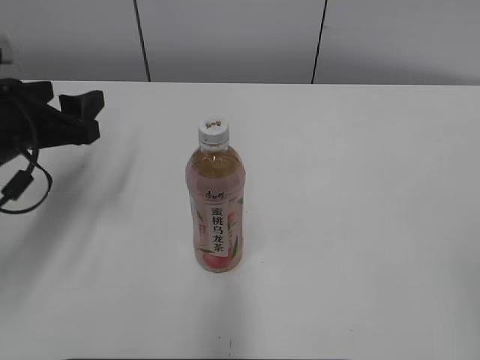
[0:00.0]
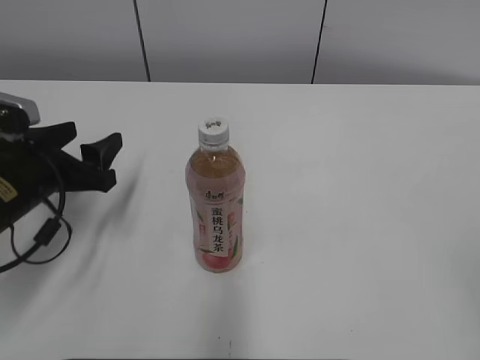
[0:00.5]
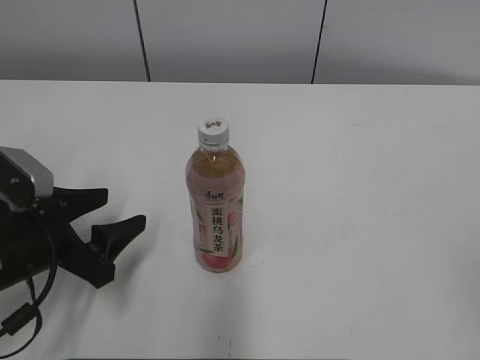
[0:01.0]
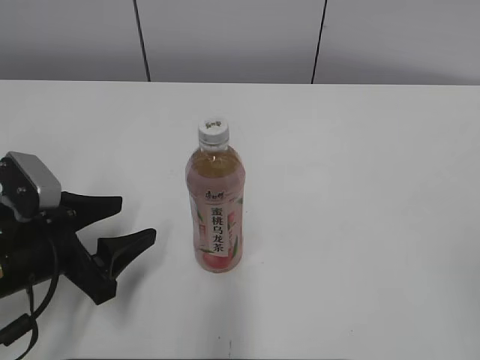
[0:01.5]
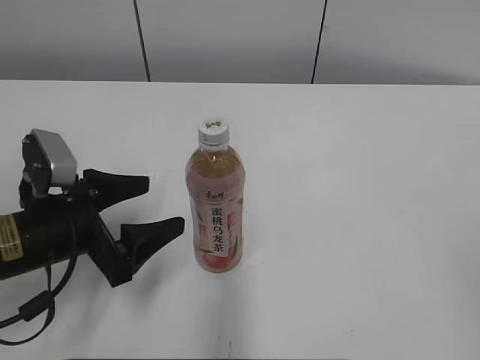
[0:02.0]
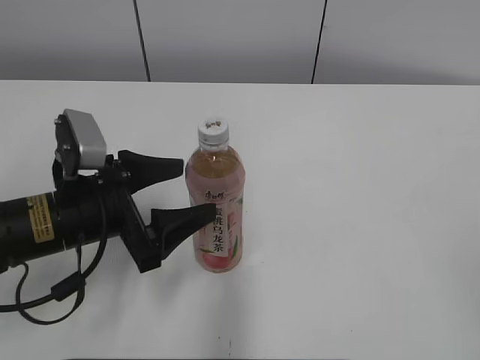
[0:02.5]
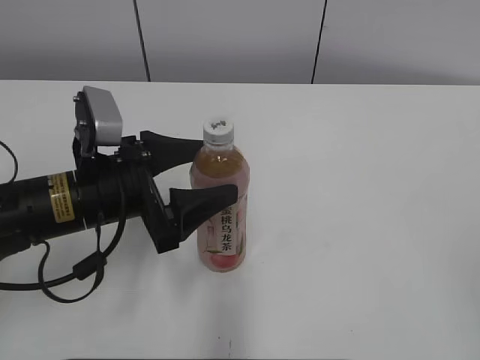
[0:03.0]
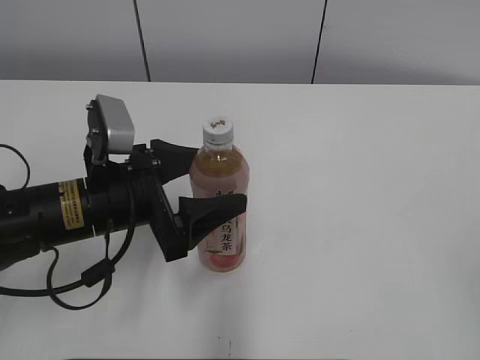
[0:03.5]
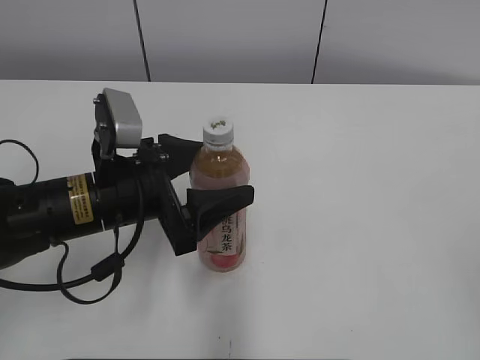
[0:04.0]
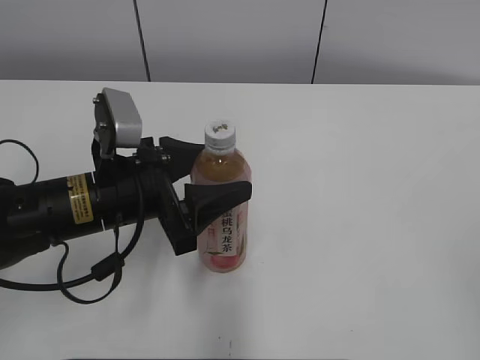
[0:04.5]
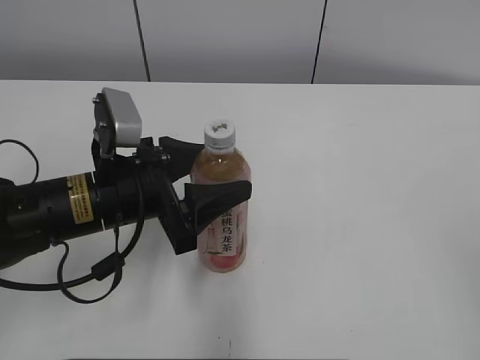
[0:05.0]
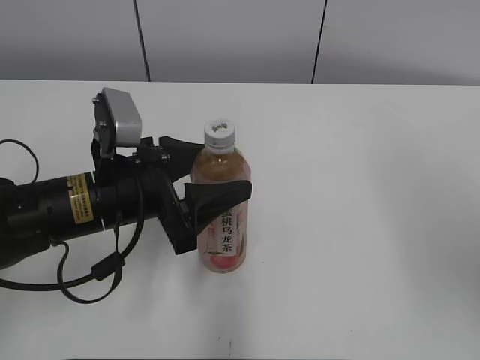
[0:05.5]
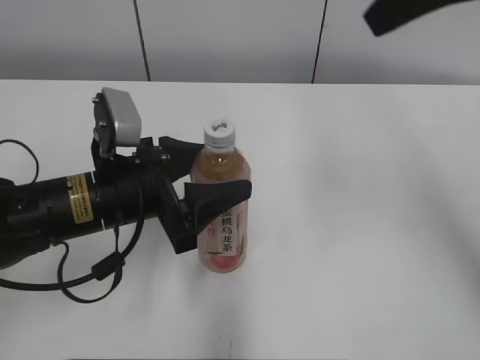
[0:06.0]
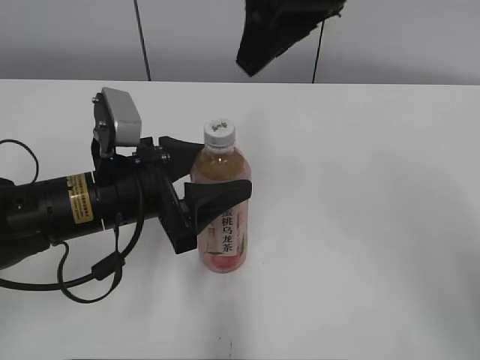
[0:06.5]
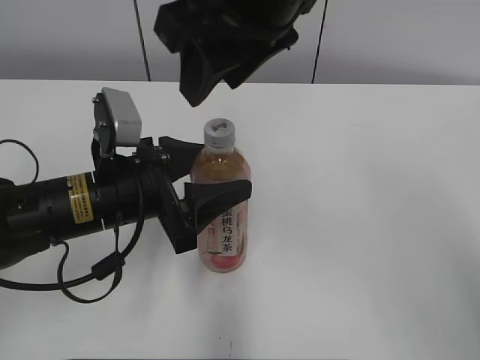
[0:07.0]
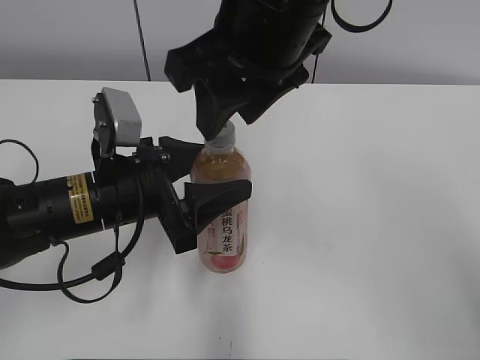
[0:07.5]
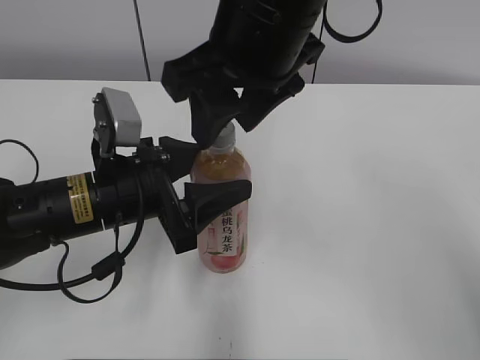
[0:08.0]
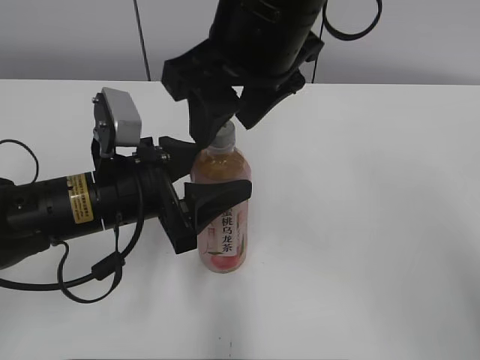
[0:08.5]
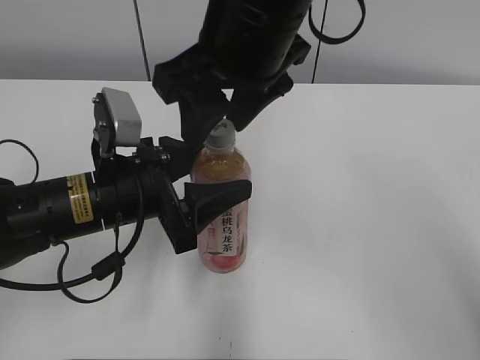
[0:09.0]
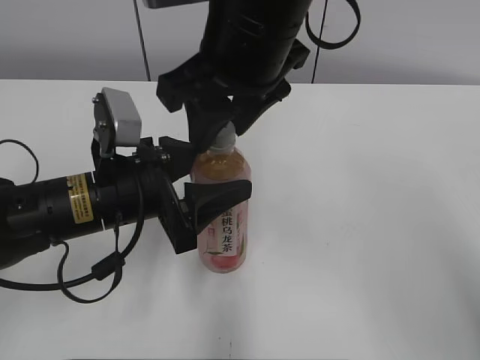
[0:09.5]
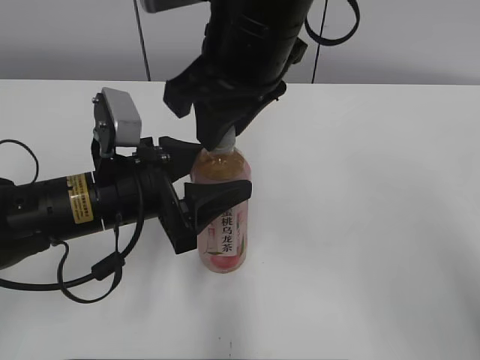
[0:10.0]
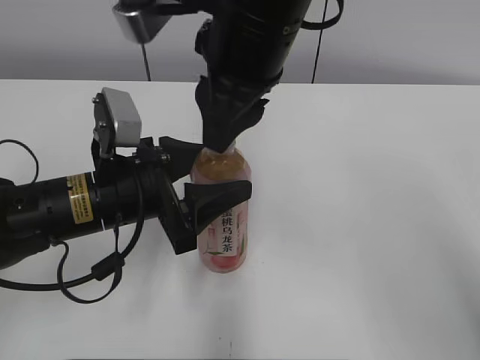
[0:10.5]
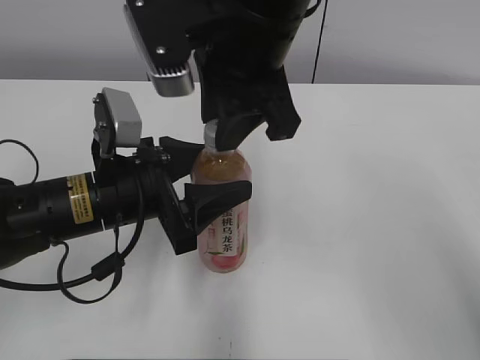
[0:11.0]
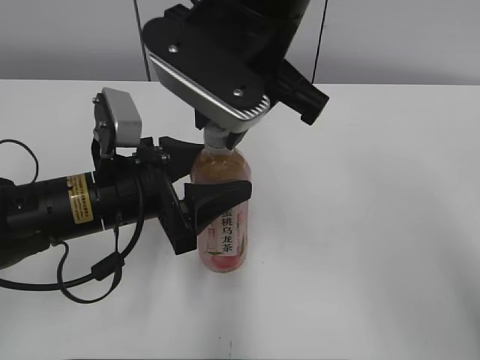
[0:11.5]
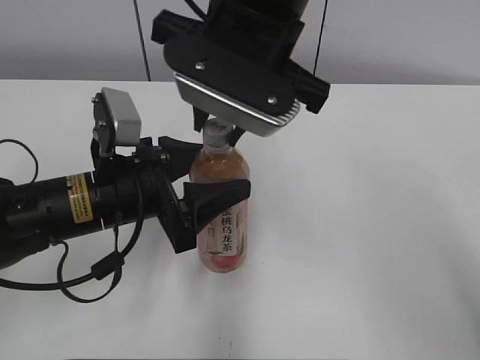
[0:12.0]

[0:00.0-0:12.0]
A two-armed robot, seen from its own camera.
Step, 0:00.0 to 0:04.5: Grab the Peach Oolong Tea with the left hand.
0:00.0 to 0:02.0: The left gripper heads downward and backward, covering approximately 10 cm.
0:02.0 to 0:04.0: The left gripper moves to the right, roughly 5 cm.
0:04.0 to 0:06.0: The right gripper shifts about 35 cm forward, upward and to the left.
0:06.0 to 0:08.0: The right gripper travels to the left and downward by some 20 cm.
0:08.0 to 0:10.0: The right gripper closes.

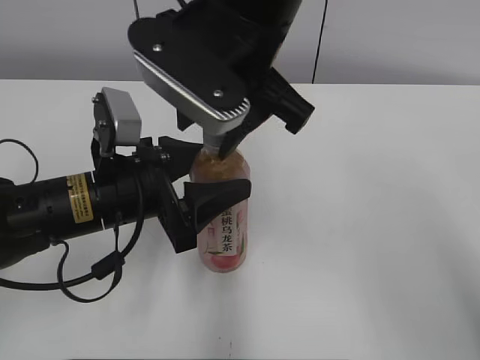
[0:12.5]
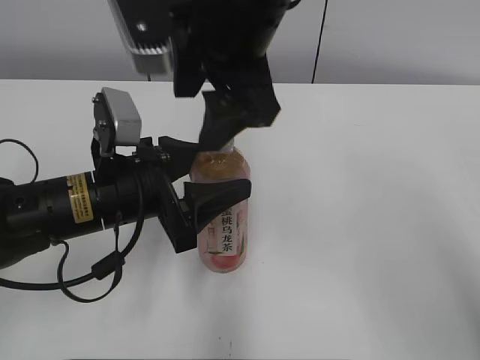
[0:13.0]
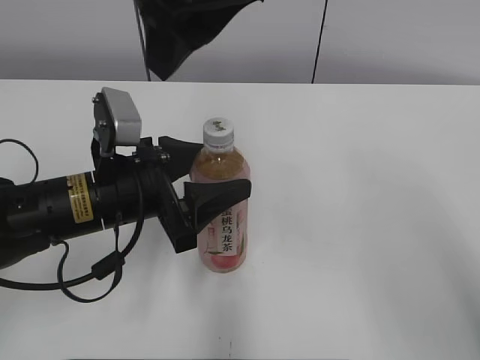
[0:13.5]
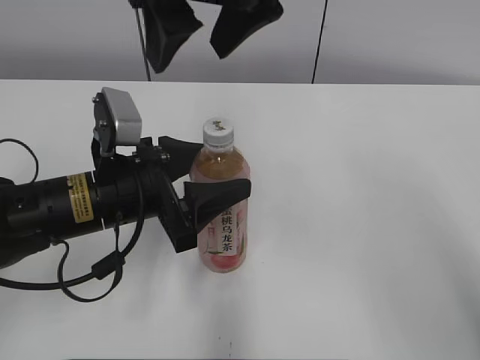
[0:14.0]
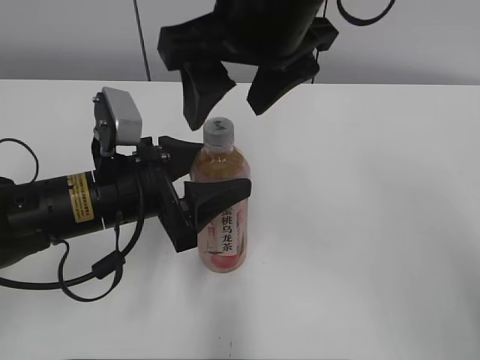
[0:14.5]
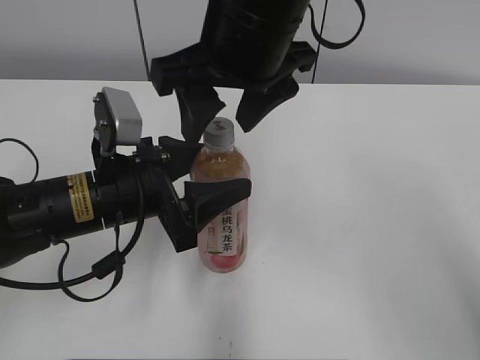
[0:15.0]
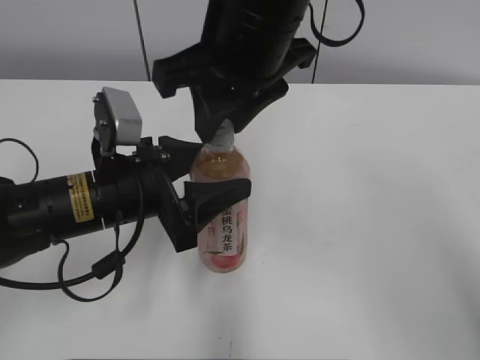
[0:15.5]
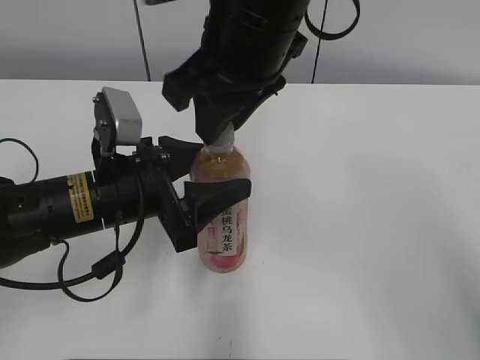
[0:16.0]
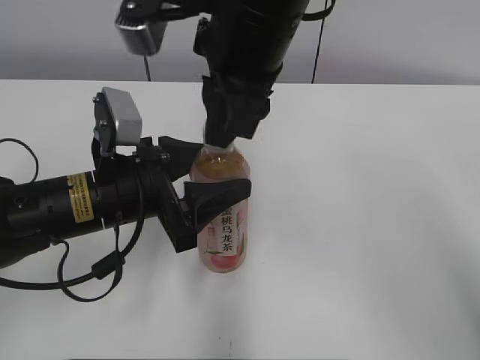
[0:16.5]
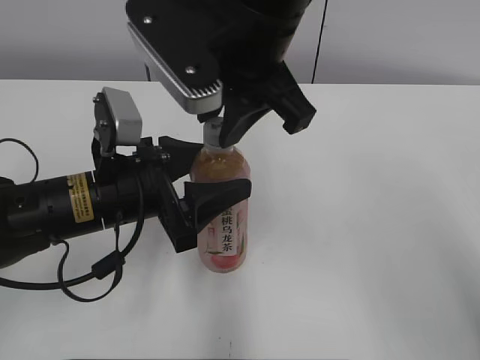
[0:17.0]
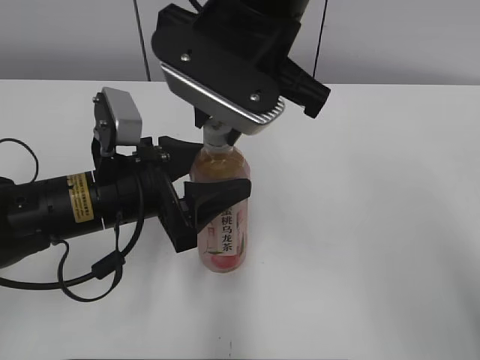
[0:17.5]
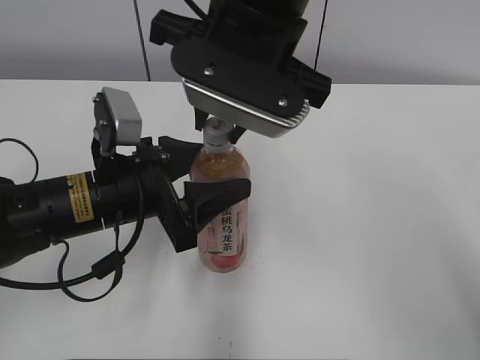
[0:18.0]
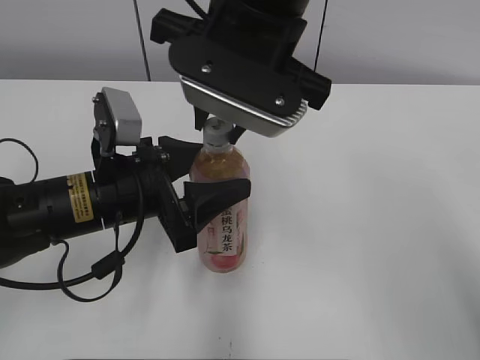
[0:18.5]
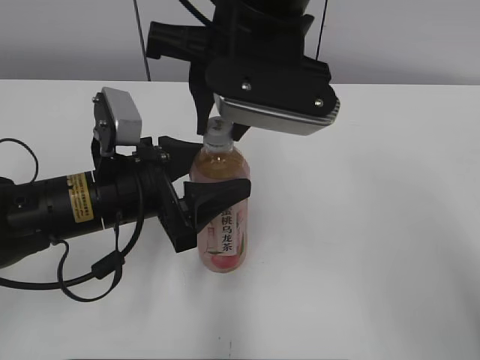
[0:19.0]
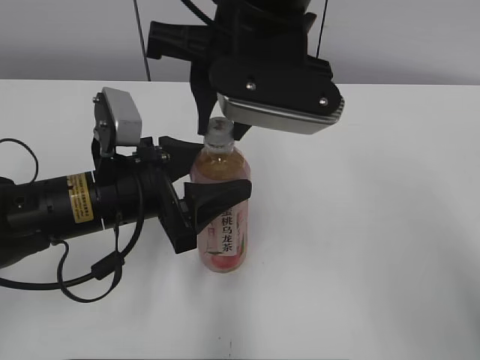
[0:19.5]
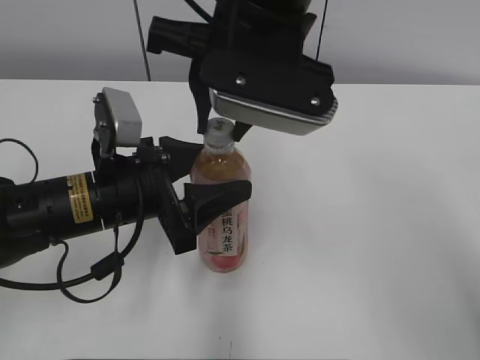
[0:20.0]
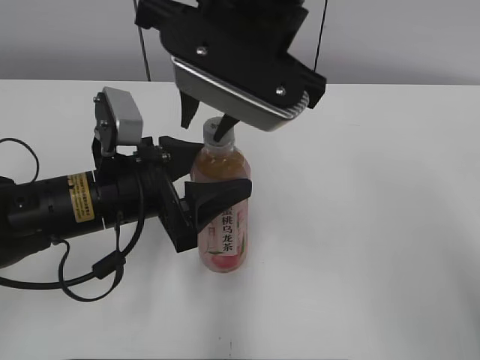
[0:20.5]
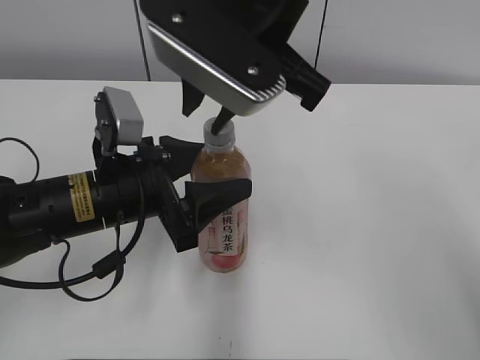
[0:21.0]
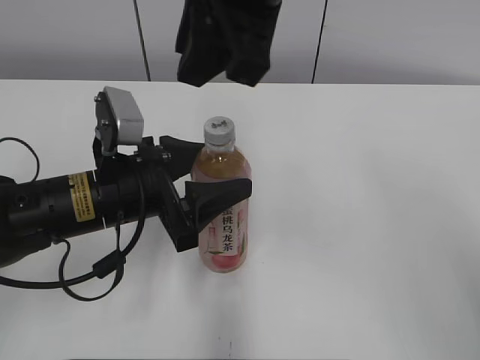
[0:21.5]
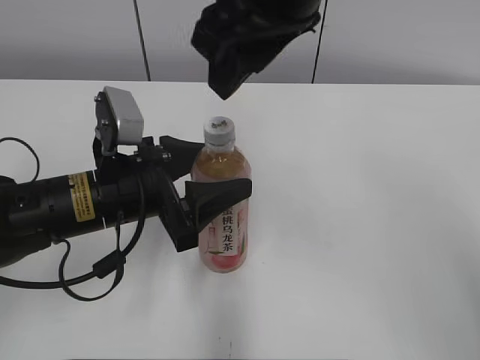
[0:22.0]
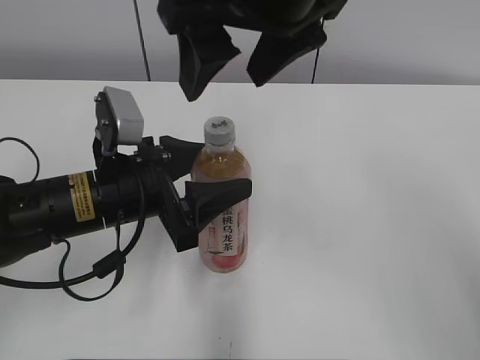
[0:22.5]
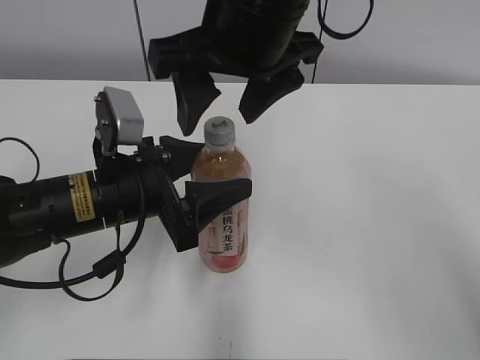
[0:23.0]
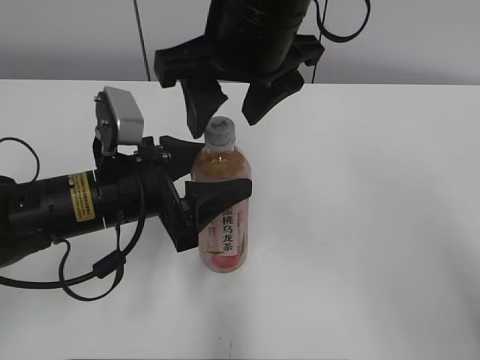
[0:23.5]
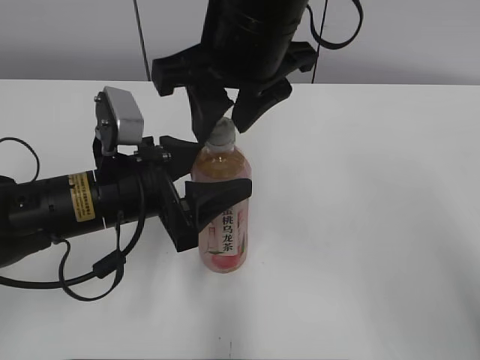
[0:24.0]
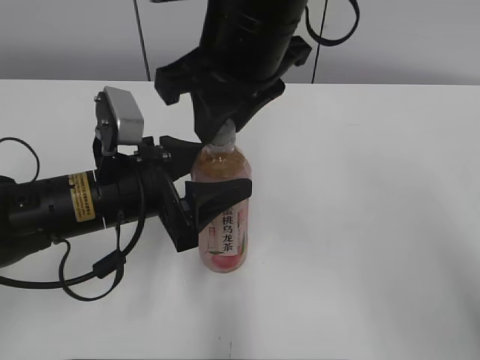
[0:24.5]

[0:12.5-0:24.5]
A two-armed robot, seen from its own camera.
0:12.5 to 0:14.5: The right gripper opens.
0:14.5 to 0:16.5: The right gripper closes up.
0:18.5 to 0:20.5: The grippers stay close to where they were, moving slightly.
0:20.5 to 0:22.5: The right gripper opens up.
0:22.5 to 0:24.5: The right gripper shifts roughly 5 cm downward, and closes its fingers.

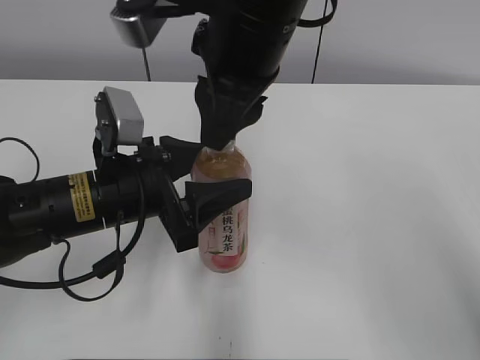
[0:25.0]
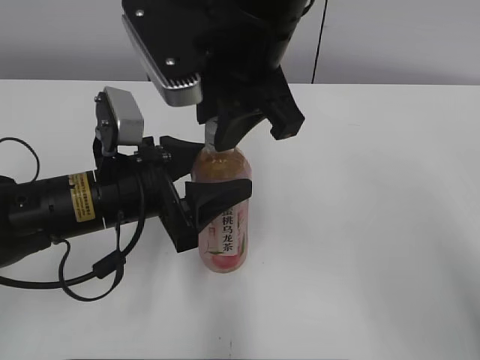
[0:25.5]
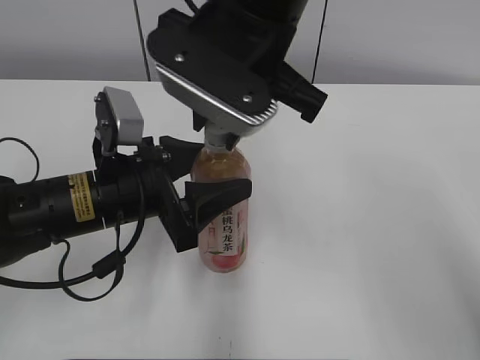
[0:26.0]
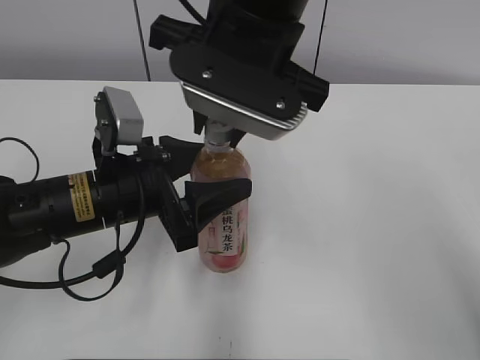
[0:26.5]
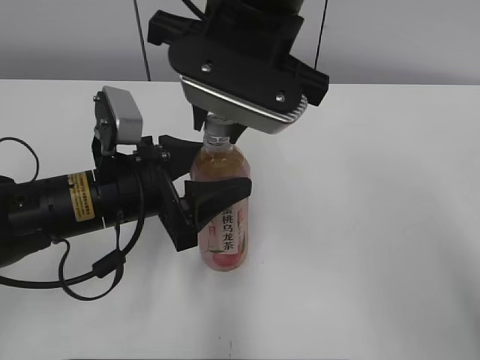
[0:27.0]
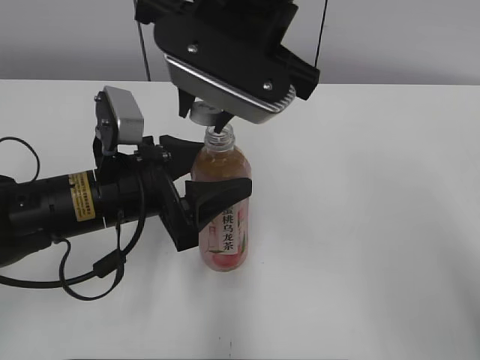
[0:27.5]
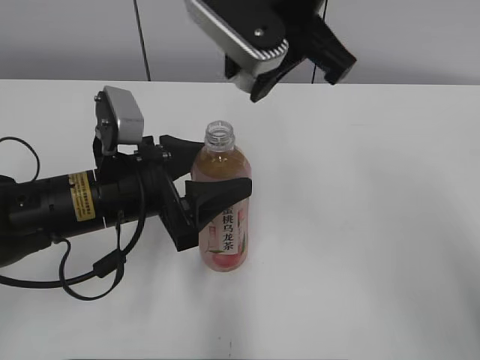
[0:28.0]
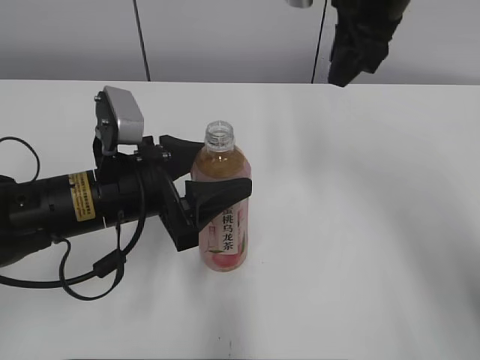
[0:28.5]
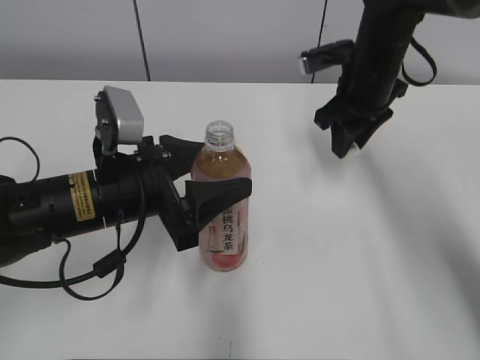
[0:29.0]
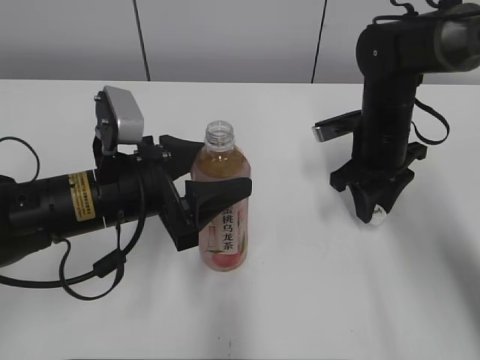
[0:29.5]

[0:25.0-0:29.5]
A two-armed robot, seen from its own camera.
0:27.0 to 0:29.5: The right gripper goes about 25 cm downward, to the right and forward.
